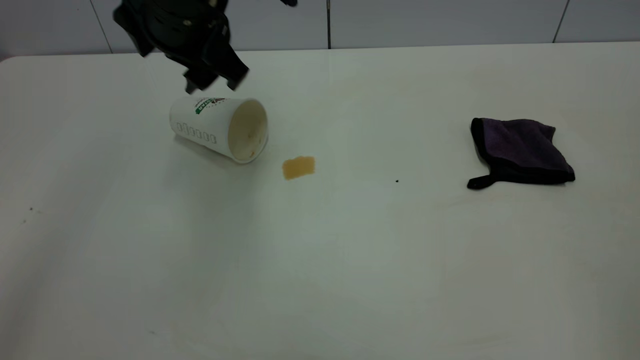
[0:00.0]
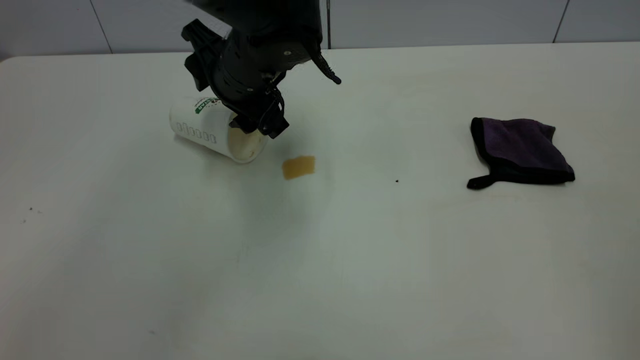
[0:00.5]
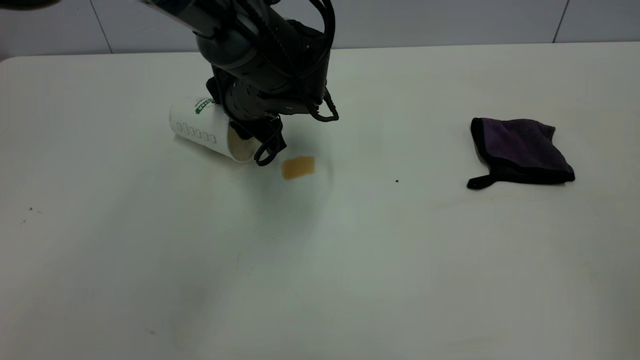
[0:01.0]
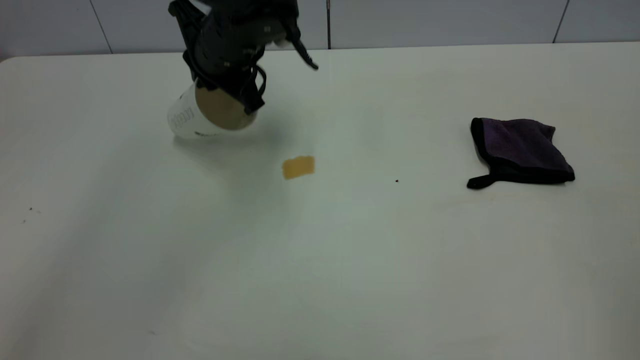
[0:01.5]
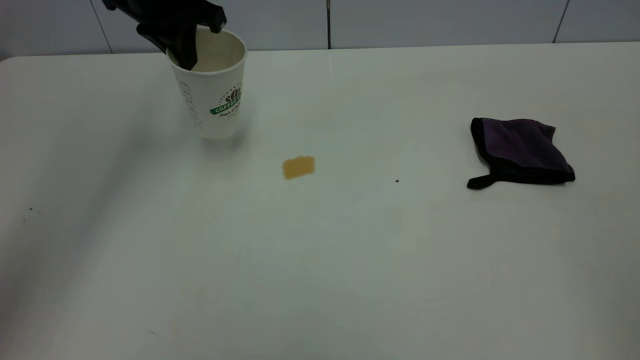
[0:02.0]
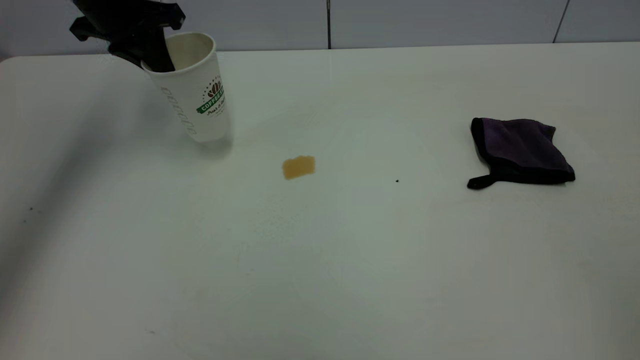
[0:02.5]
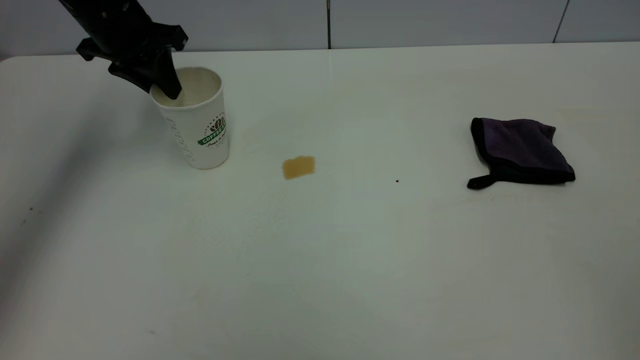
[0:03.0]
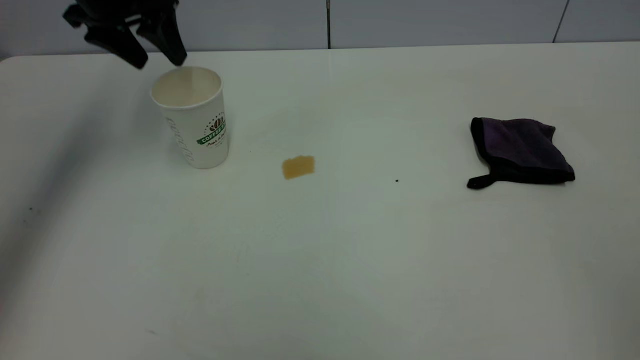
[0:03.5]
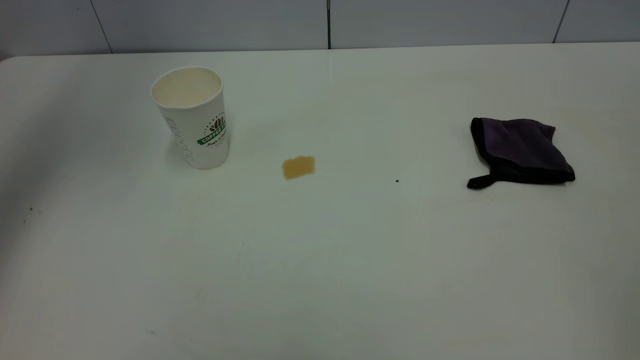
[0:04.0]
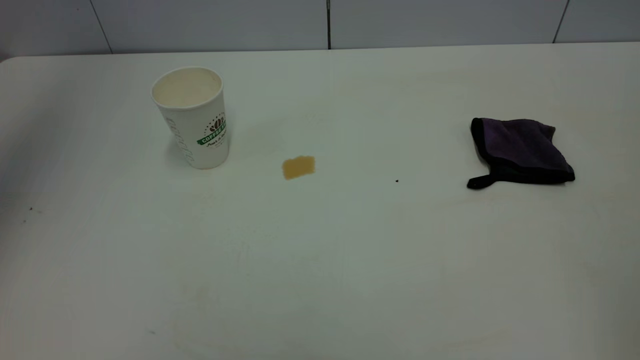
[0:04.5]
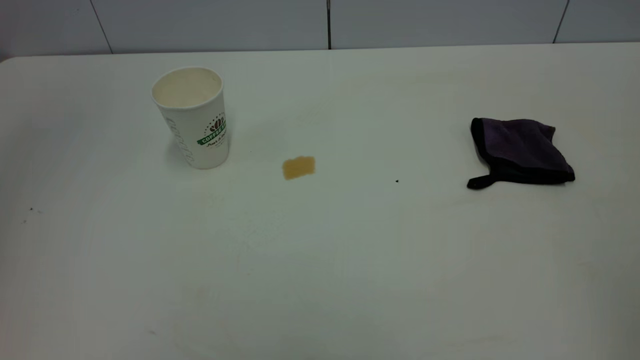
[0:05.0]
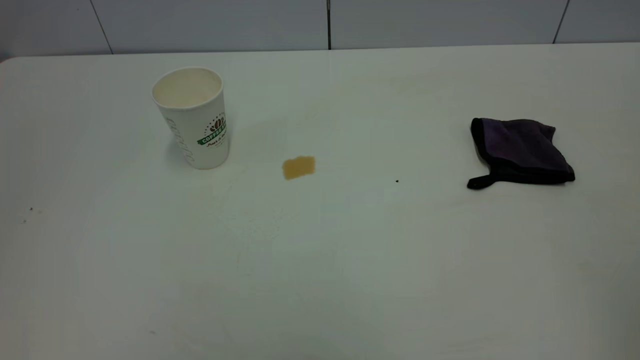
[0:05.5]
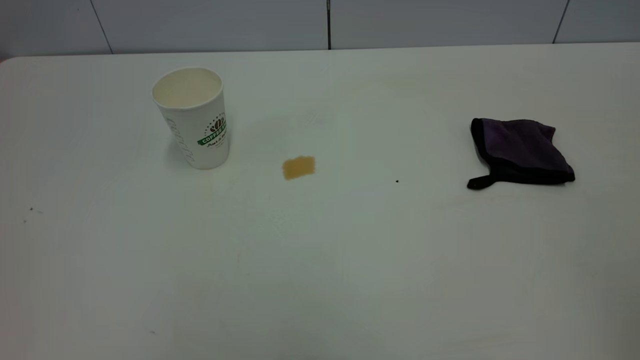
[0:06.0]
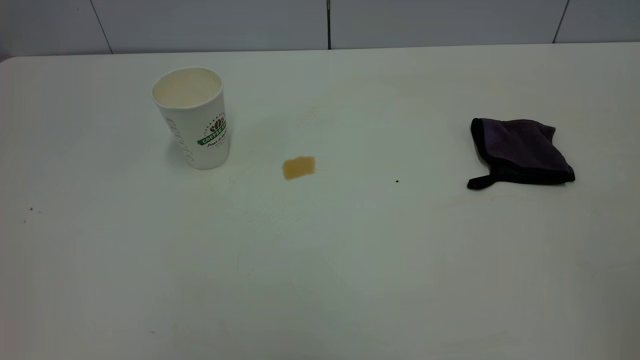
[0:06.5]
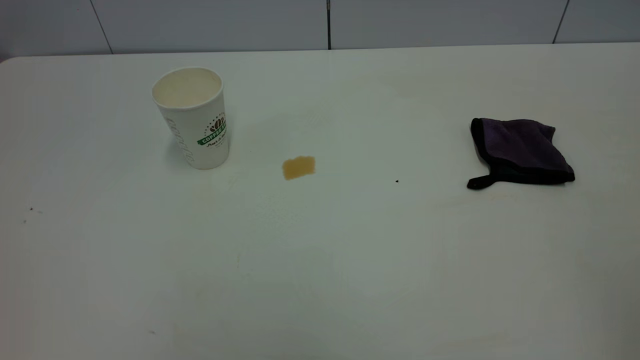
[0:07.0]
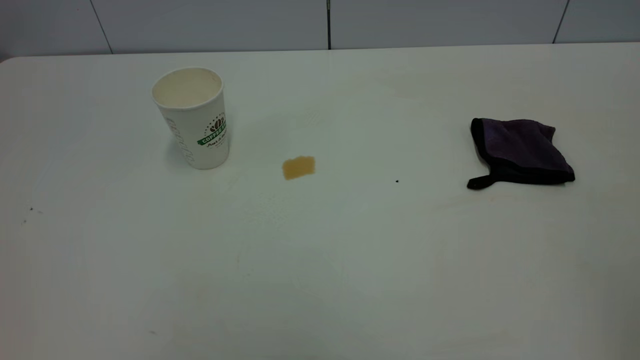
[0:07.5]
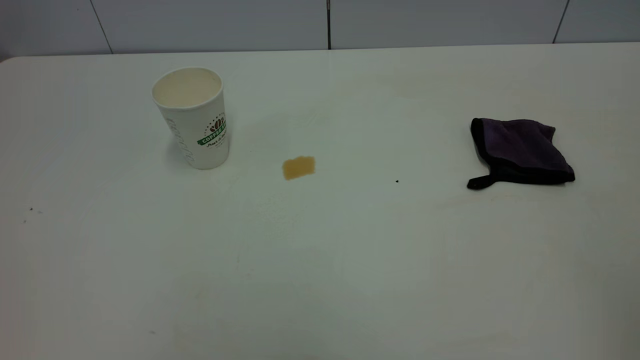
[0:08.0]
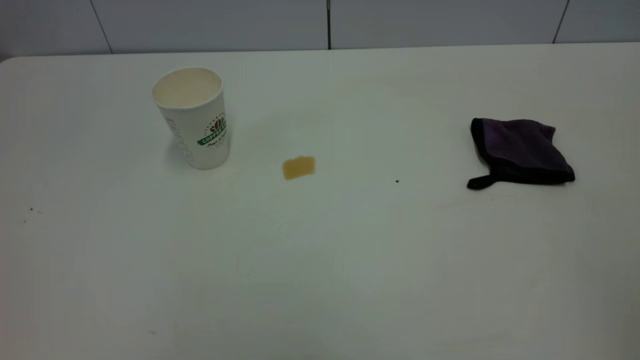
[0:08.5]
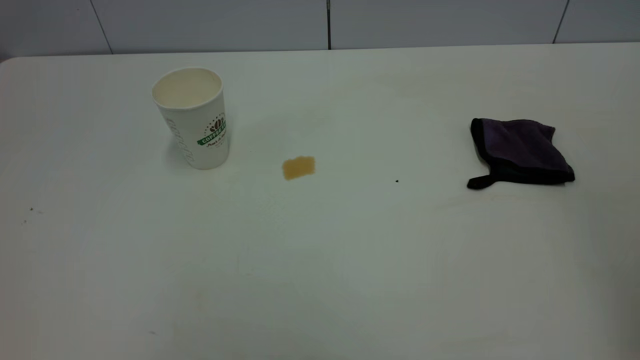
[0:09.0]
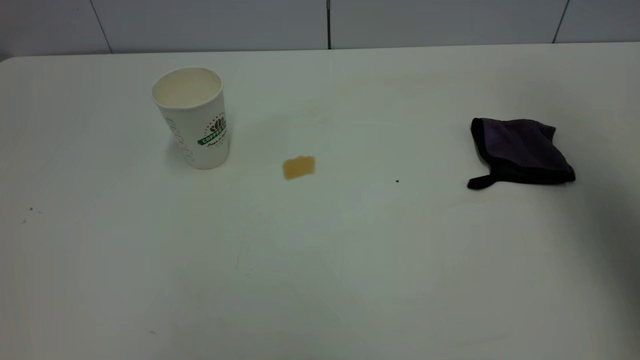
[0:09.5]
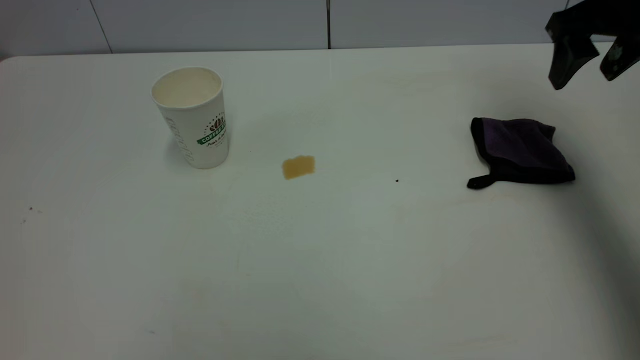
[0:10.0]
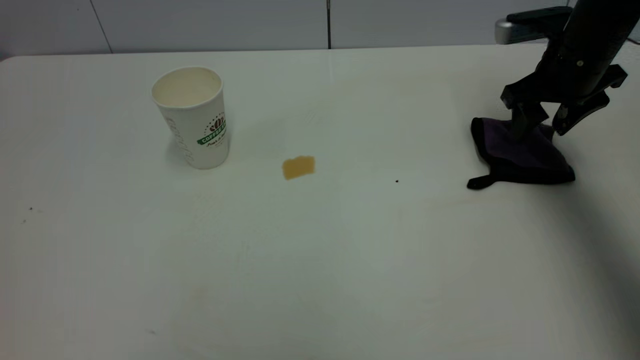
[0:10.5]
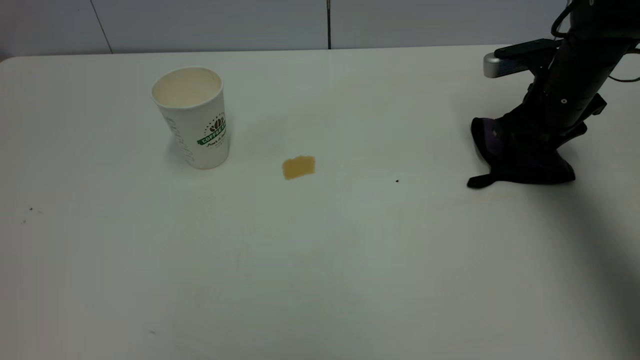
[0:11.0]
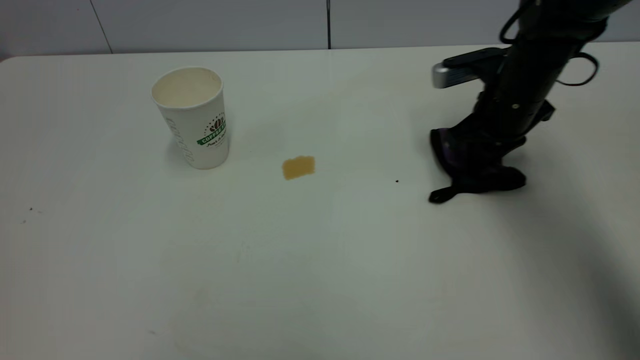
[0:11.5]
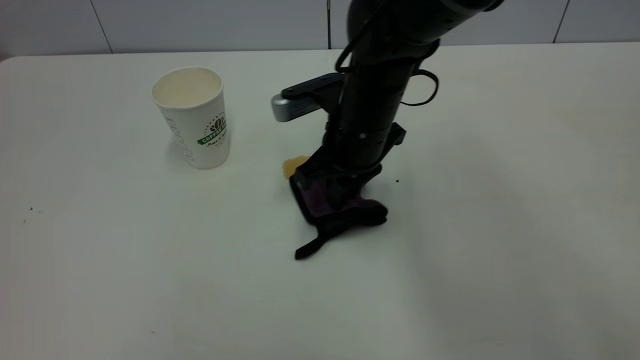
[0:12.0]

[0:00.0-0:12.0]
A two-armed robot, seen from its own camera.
Task of the whole recording: the left gripper pick up the fallen cup and place it upright, the right gripper grasp the purple rag and wipe the tea stain on the table, the right gripper put the purple rag back in its original position.
Step, 0:00.0 to 0:03.5: Stand the paper cup upright.
0:00.0 to 0:02.0: The left gripper goes roughly 15 cm forward and to the left, moves about 10 cm downward and comes back, and closes up.
0:02.0 to 0:04.0: The left gripper is displaced upward and to the left by roughly 20 cm, and opens.
0:04.0 to 0:06.0: The left gripper is displaced backward by roughly 40 cm.
0:08.0 to 0:10.0: The right gripper heads forward, covering approximately 40 cm, and opens up.
0:10.0 to 0:12.0: The right gripper goes approximately 30 cm to the left and downward, and closes.

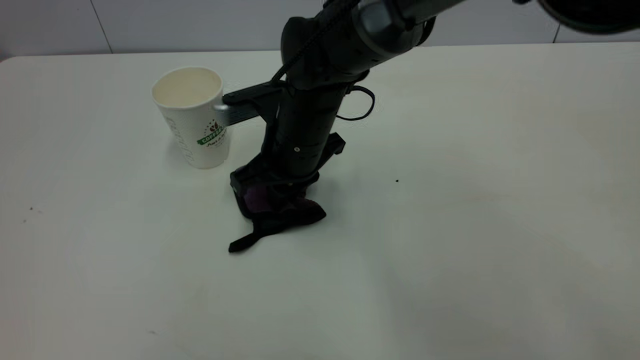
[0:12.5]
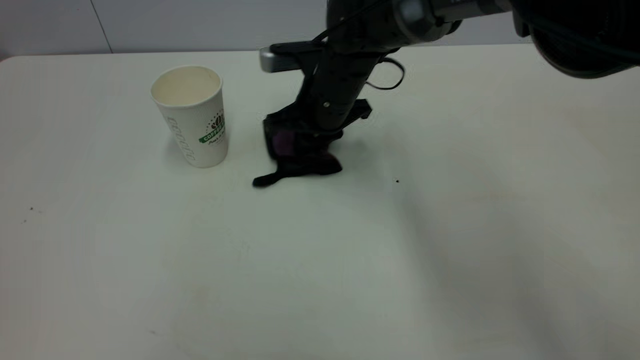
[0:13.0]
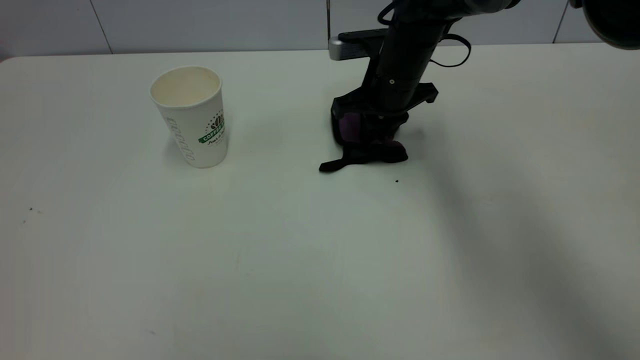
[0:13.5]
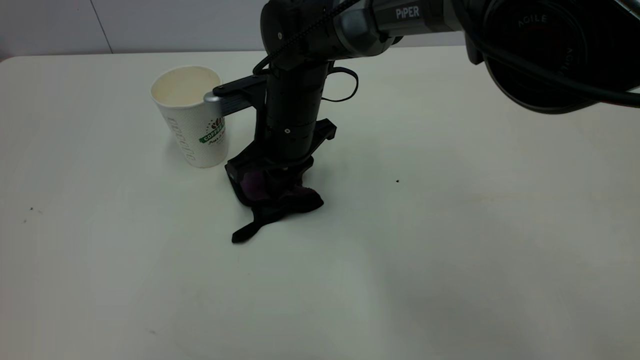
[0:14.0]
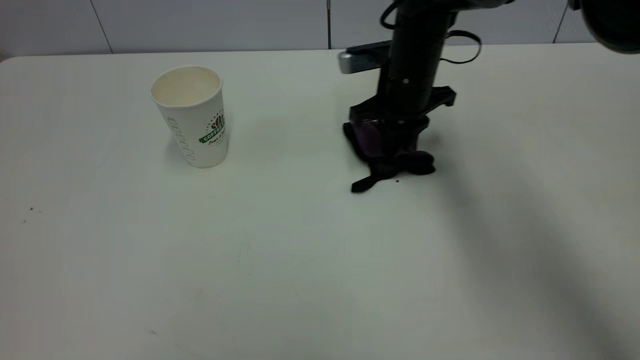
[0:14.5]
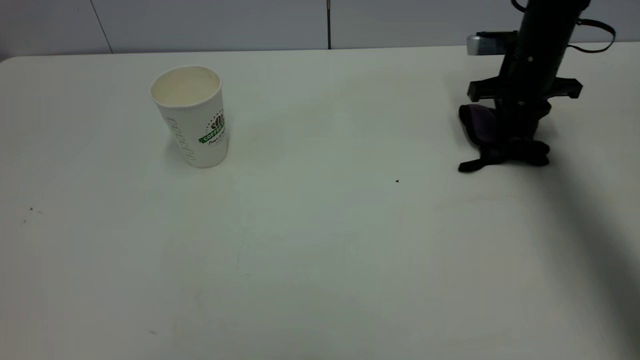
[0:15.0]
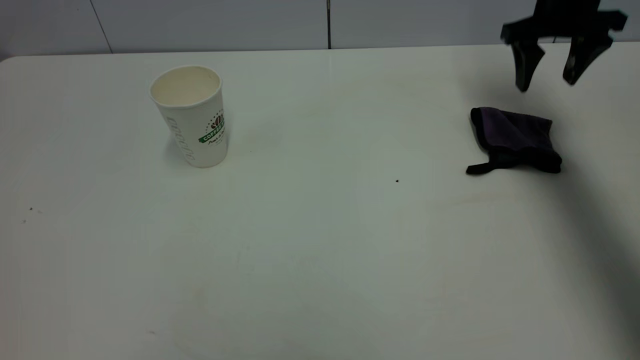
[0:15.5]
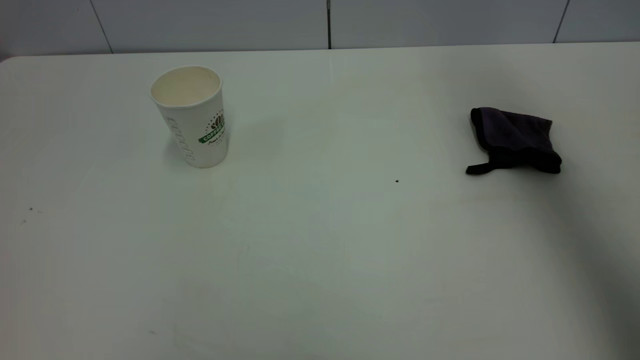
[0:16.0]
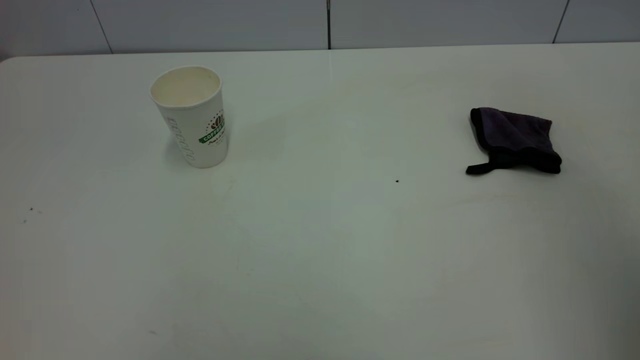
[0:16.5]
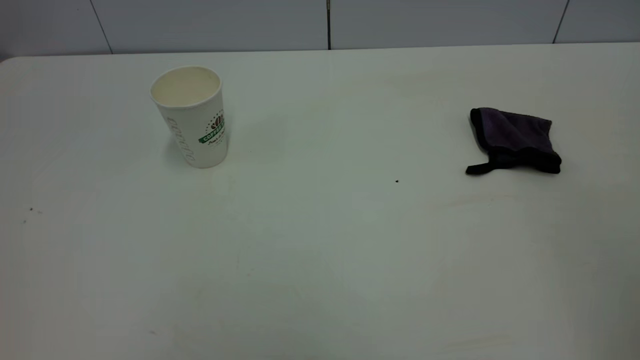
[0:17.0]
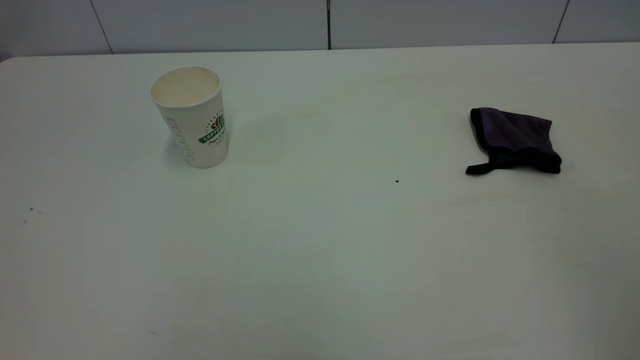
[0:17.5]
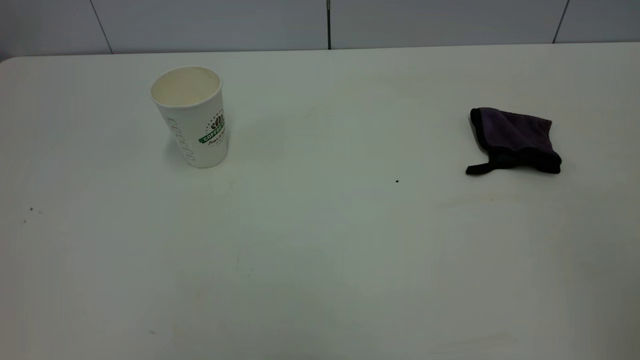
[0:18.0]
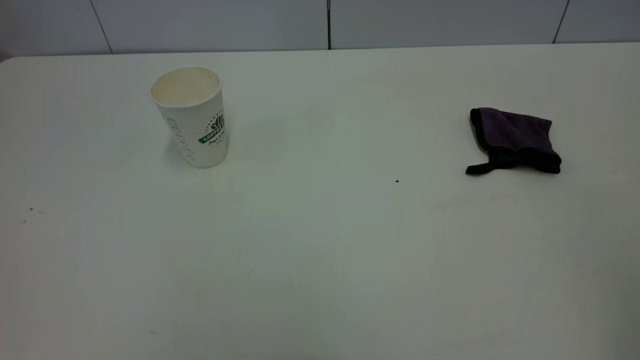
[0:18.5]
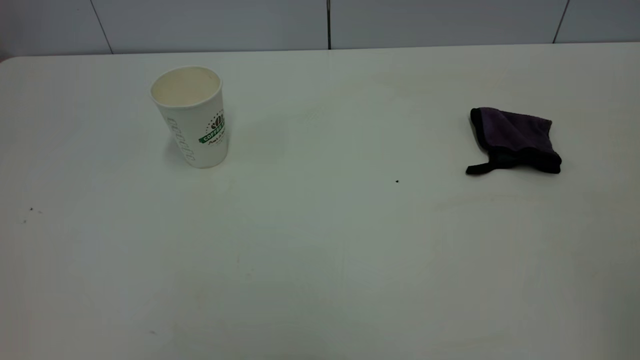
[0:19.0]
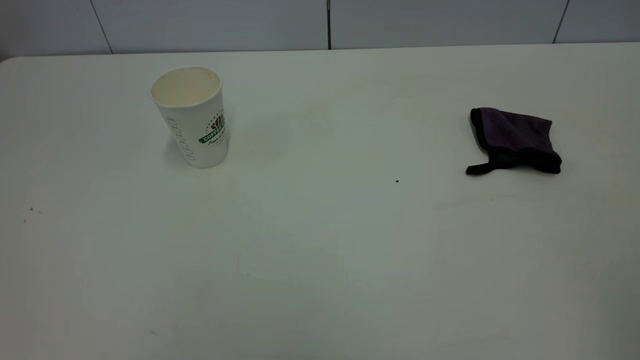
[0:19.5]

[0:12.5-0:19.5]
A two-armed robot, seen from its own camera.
Task of the whole recording: the left gripper pick up the fallen cup and place it upright, the right gripper grasp the purple rag and wipe the tea stain on the table, the right gripper put the purple rag back in its original position.
Step, 0:12.5 to 0:15.5: Wipe the stains off the table with a rag.
0:12.5 to 0:14.5: The right gripper goes left and right, approximately 15 cm each way, reversing 2 times.
0:14.5 to 0:16.0: The right gripper goes approximately 30 cm upward and to the right, and opens up.
0:16.0 to 0:17.5: The right gripper heads backward, covering some 35 cm.

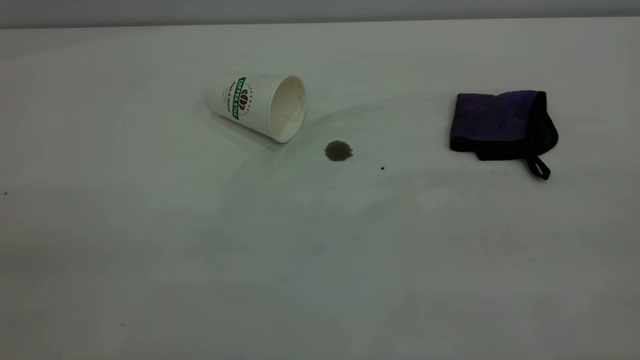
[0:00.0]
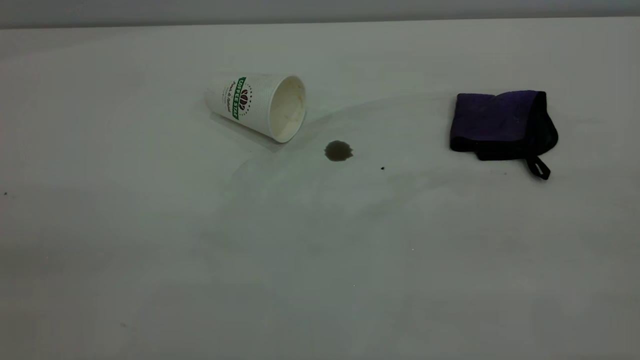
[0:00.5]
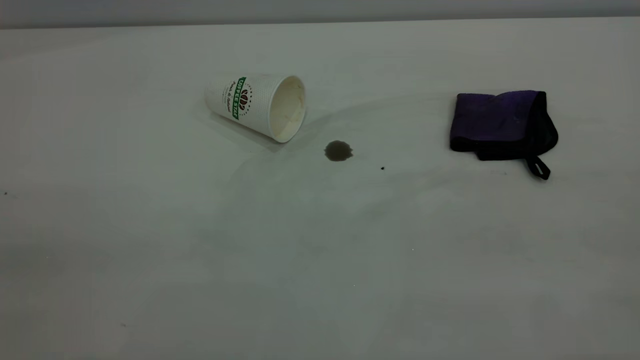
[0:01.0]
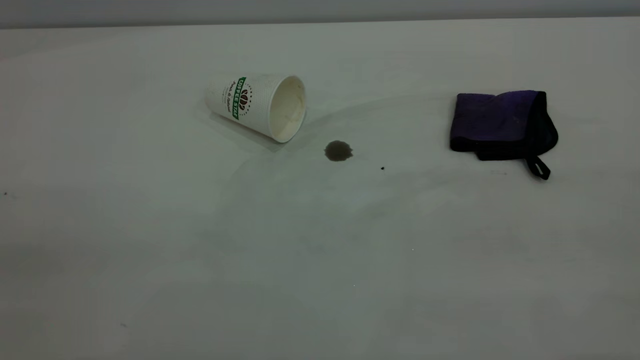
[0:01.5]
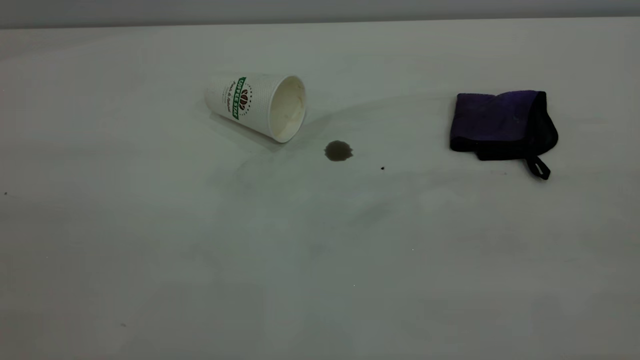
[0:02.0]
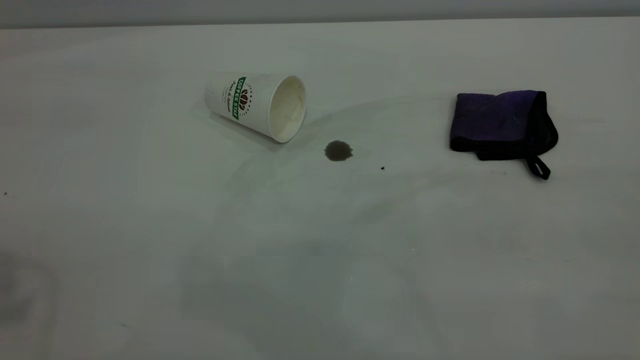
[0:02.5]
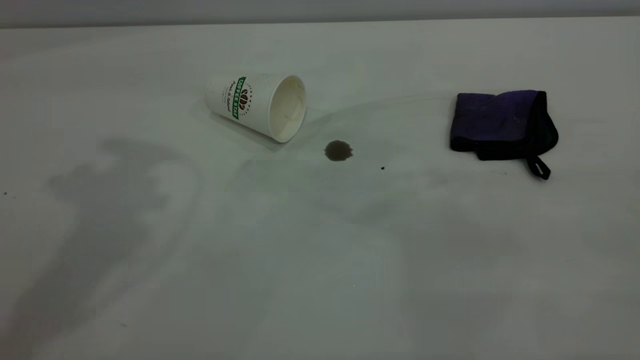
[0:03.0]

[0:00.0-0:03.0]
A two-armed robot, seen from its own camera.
Task of the whole recording: the left gripper pick up the fallen cup and place it upright, the right gripper grasp the purple rag and wipe the coffee stain on the table, the right gripper put the purple rag back in its original position.
0:00.0 to 0:01.5: Both grippers stay put.
